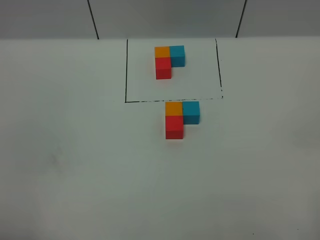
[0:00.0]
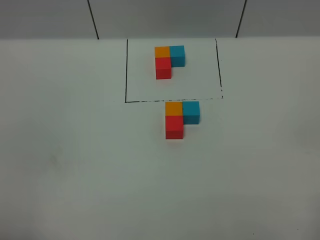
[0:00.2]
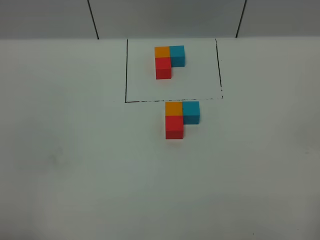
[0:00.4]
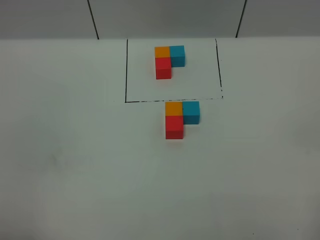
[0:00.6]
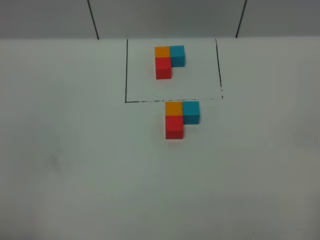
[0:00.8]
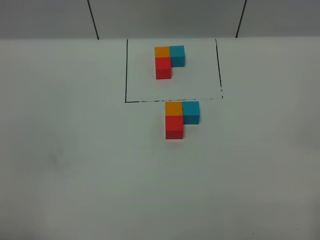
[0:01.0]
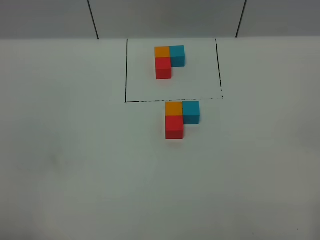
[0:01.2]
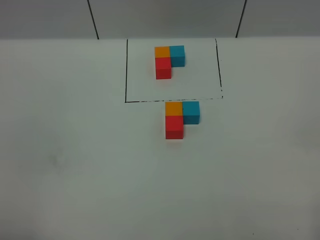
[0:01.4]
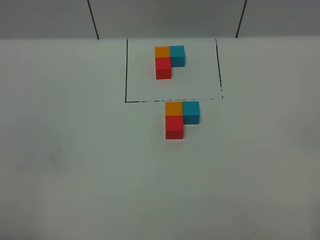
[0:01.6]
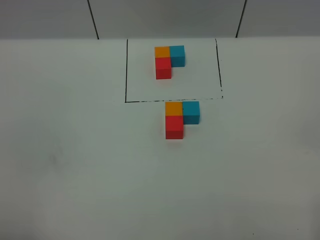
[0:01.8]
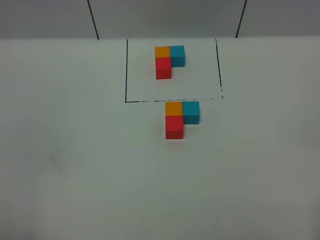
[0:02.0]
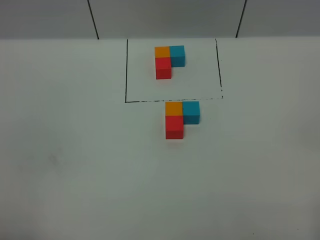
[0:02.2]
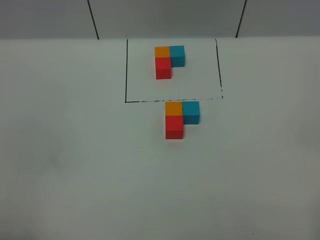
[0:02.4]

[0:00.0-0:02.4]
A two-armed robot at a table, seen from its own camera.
Task of the whole recording: According to the building block template in front, assemble the scattered blocks together.
1.2 to 2.4 s: The two grippers keep their place.

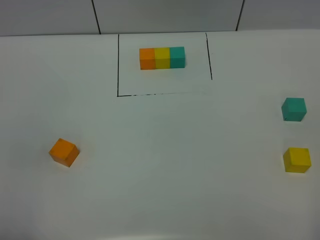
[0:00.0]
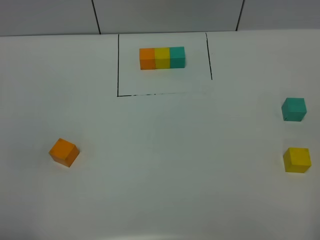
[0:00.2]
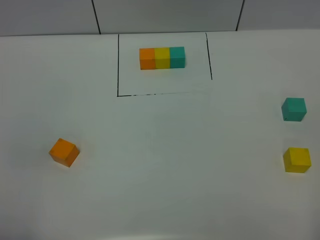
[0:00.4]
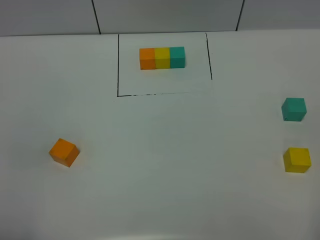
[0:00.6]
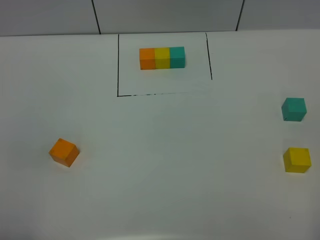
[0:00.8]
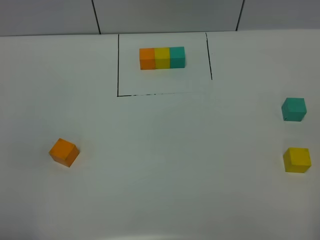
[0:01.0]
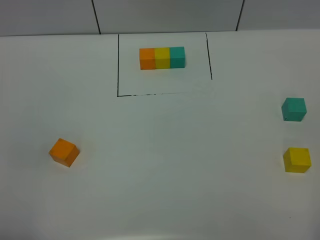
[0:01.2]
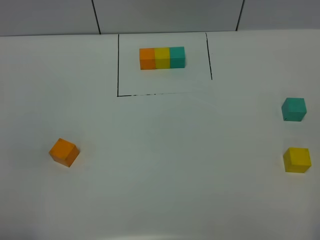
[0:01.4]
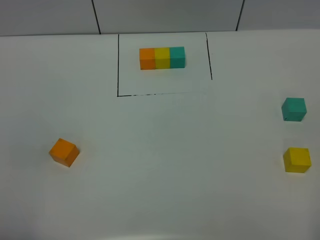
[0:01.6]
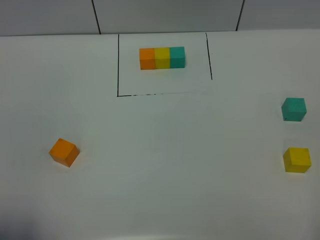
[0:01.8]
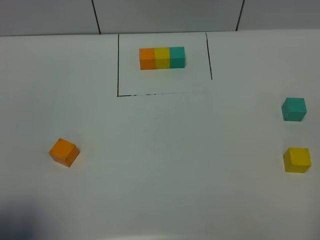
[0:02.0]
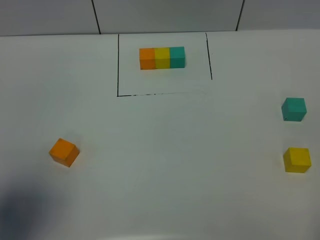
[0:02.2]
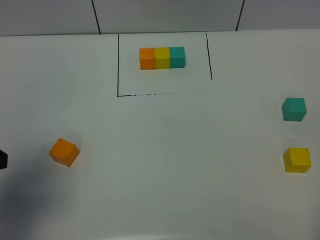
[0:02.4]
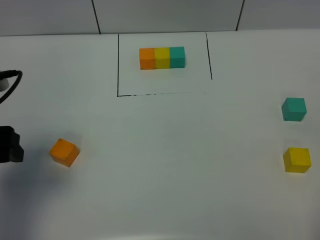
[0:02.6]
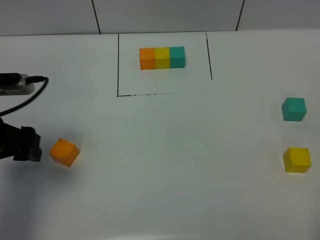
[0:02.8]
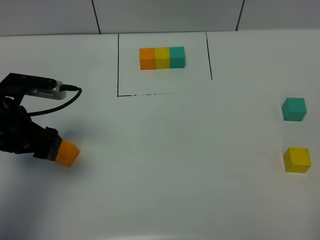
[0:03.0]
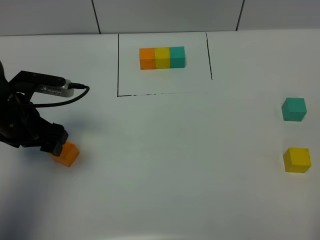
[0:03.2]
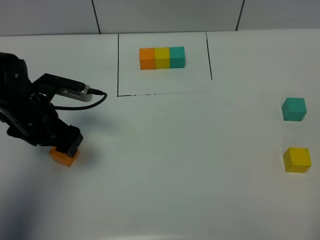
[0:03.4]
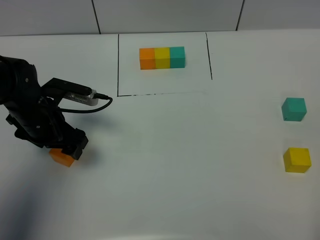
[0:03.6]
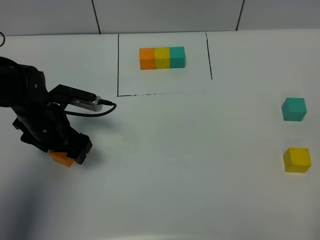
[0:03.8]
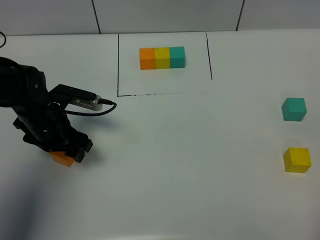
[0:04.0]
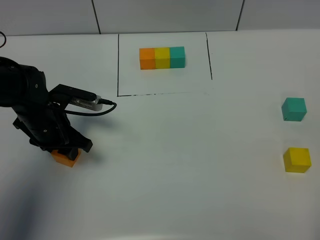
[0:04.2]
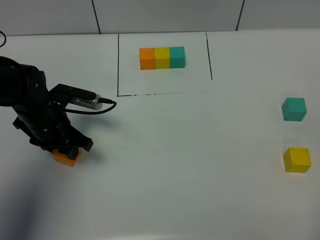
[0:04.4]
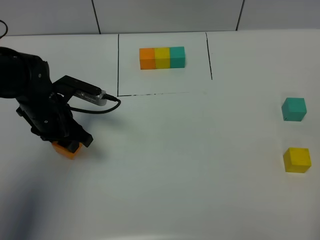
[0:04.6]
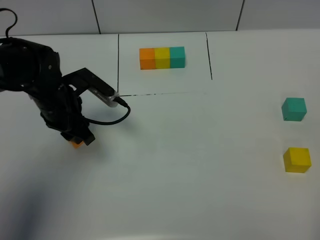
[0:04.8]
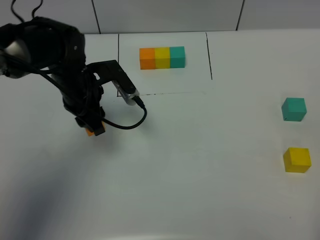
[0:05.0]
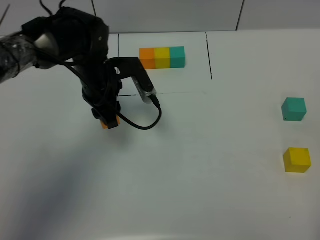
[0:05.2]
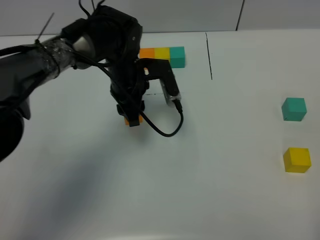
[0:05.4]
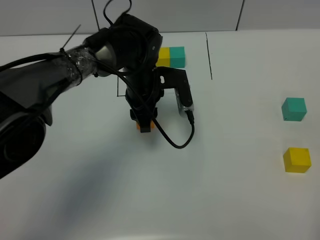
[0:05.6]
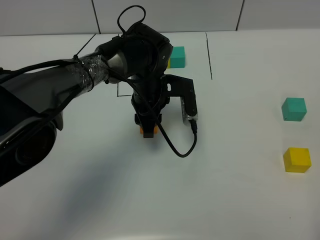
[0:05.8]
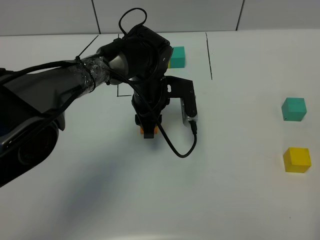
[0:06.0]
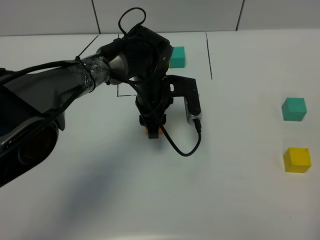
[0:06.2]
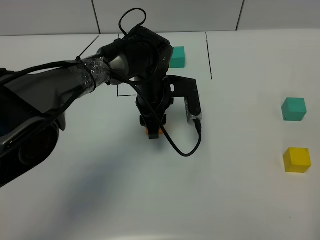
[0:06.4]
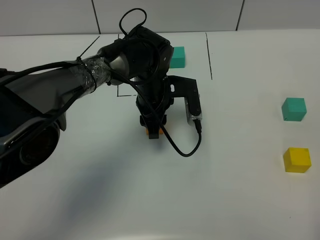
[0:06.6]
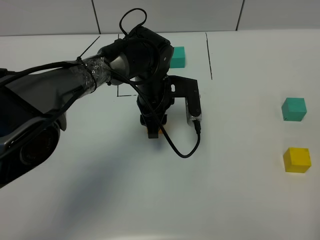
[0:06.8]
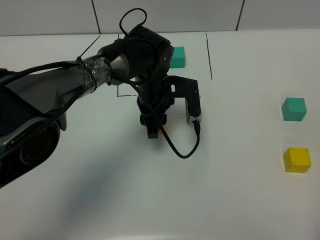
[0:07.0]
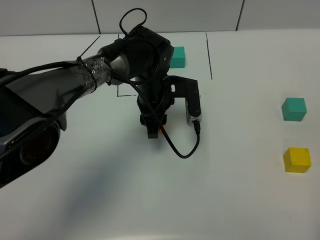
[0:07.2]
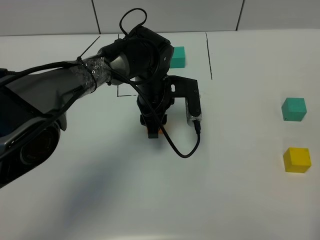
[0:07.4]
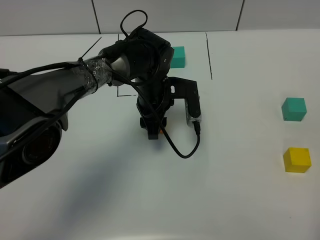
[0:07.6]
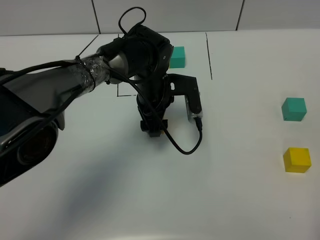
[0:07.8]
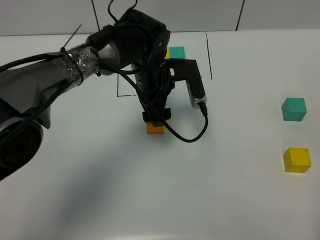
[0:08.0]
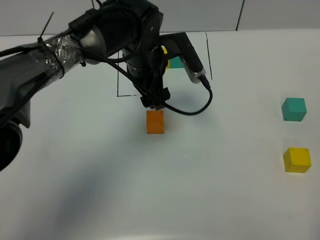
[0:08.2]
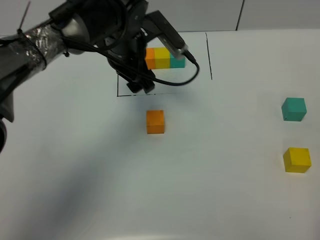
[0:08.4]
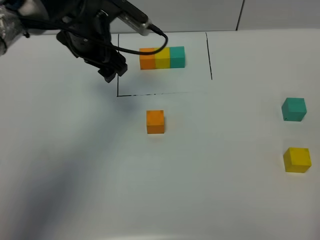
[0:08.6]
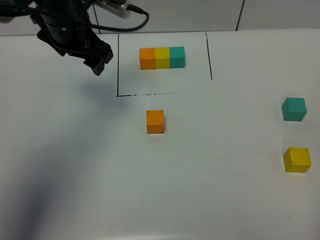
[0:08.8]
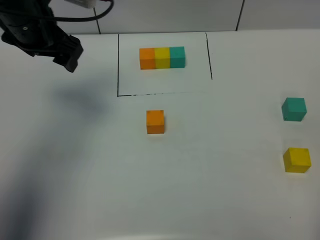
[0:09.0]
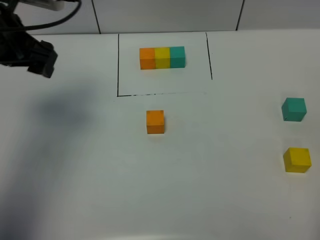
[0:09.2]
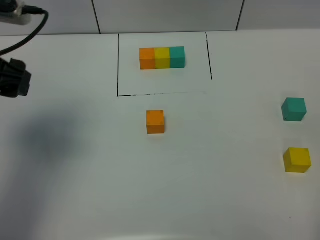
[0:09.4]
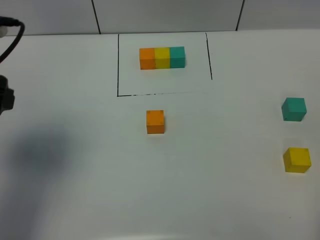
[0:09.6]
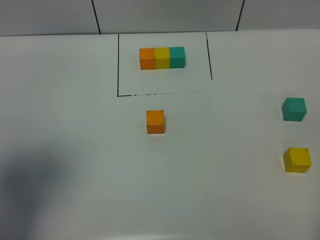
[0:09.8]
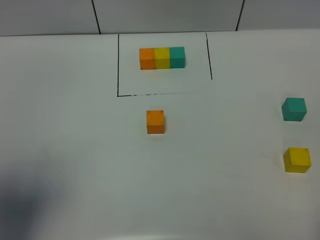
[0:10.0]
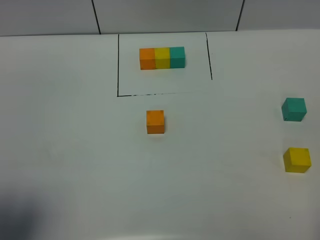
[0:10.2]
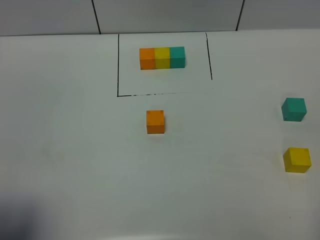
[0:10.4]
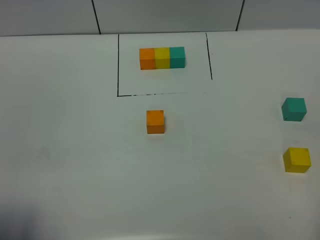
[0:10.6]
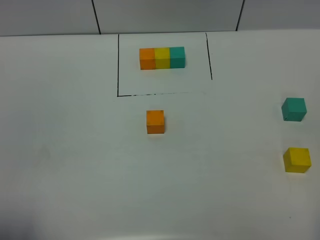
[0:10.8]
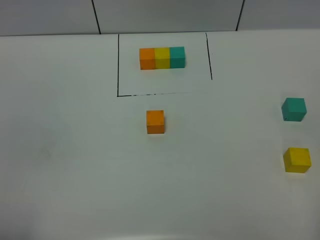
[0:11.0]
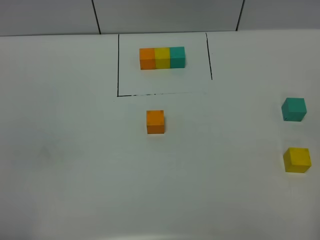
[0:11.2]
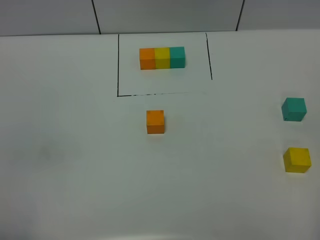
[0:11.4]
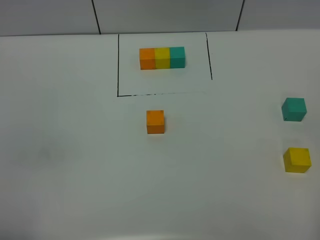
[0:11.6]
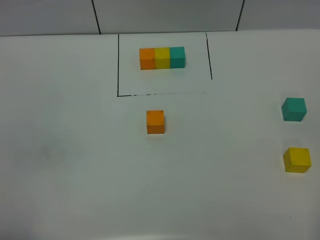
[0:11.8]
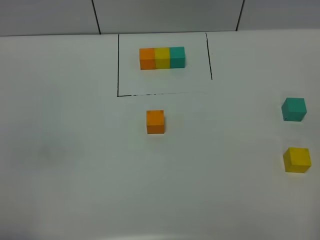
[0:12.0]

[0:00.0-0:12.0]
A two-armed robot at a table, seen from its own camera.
Task of the whole recording: According to the building block template in front, assemble the scattered blocks together.
Step, 0.0 to 7.6 s: Put the orange build block in the center of the table.
0.0 to 1.6 s: Both grippers stay about where they are.
1.6 to 3.0 s: The left gripper is displaced forward by roughly 25 cm.
3.0 to 4.4 s: The left gripper is displaced downward and forward by roughly 10 cm, and closes.
4.4 to 6.0 s: The left gripper is displaced to the right by roughly 20 cm.
6.0 to 7.6 s: Both grippers stay put.
7.6 to 9.0 s: The left gripper moves to the left and upward, roughly 25 cm, and opens.
9.0 to 10.4 s: The left gripper moves backward, about 35 cm.
10.4 to 12.0 s: The left gripper goes about 10 cm downward and backward.

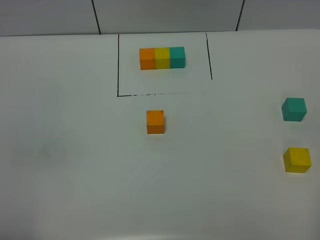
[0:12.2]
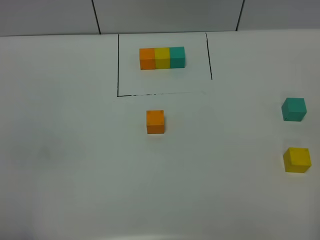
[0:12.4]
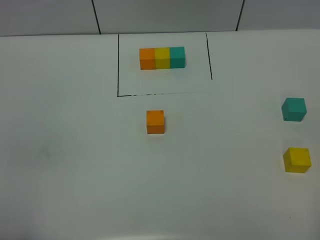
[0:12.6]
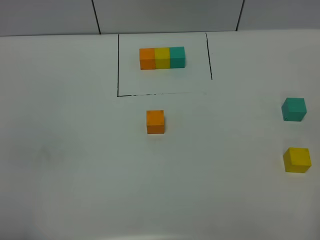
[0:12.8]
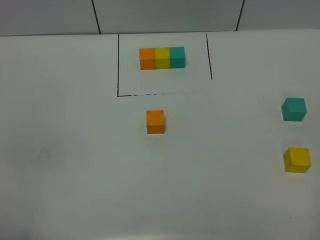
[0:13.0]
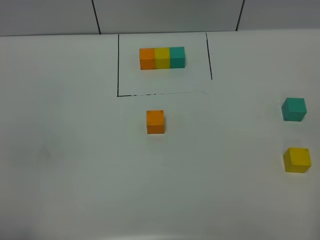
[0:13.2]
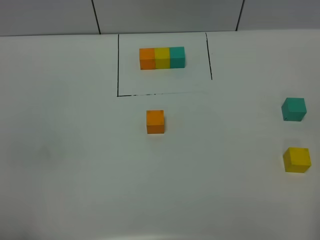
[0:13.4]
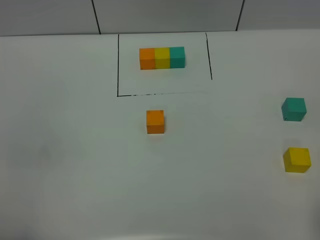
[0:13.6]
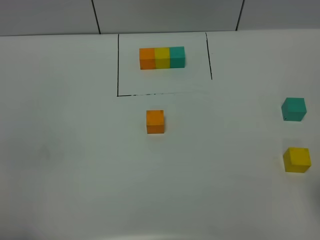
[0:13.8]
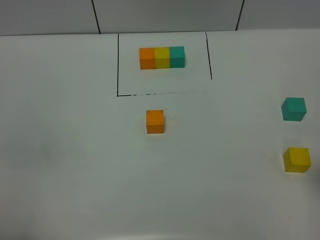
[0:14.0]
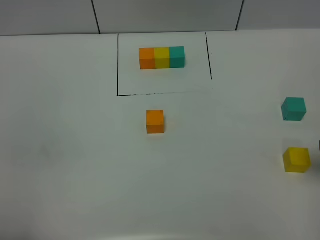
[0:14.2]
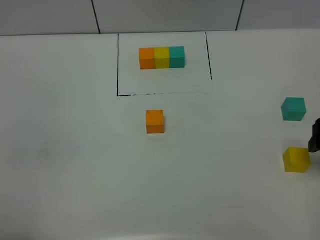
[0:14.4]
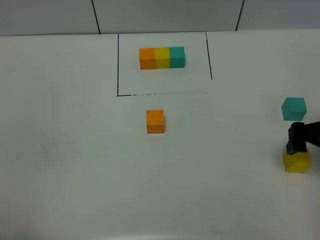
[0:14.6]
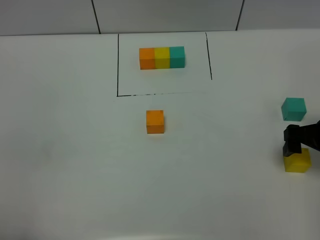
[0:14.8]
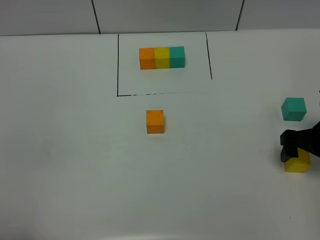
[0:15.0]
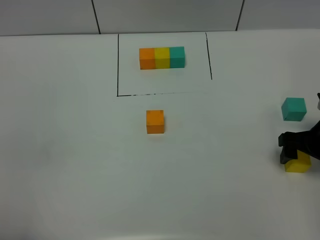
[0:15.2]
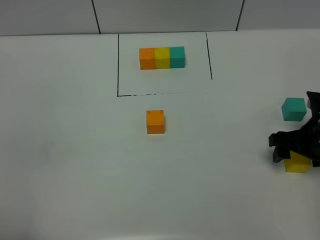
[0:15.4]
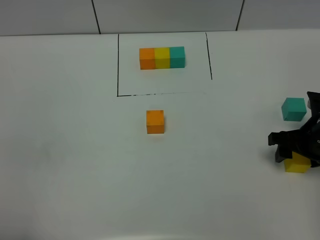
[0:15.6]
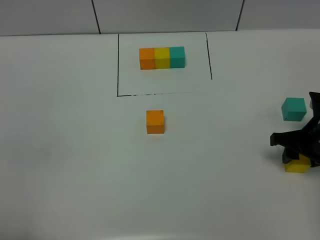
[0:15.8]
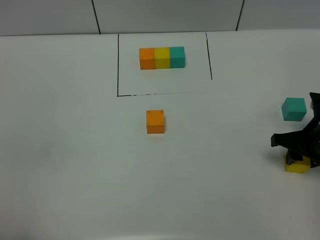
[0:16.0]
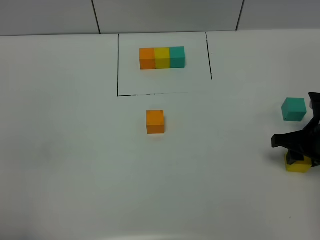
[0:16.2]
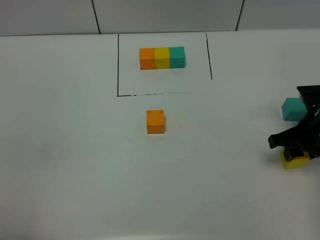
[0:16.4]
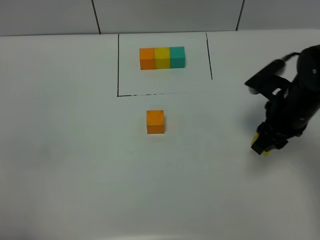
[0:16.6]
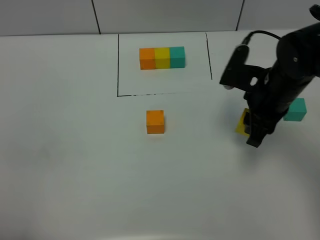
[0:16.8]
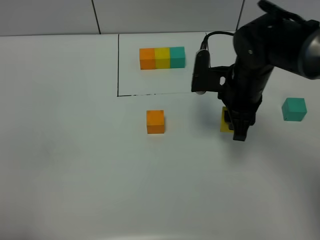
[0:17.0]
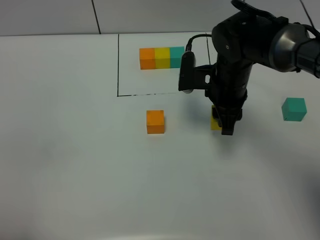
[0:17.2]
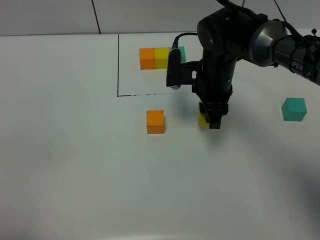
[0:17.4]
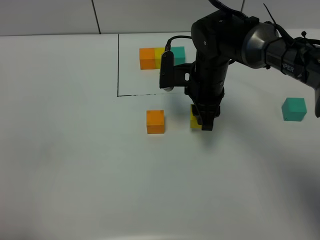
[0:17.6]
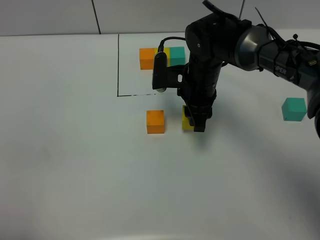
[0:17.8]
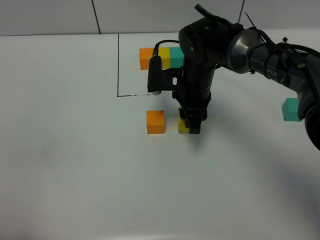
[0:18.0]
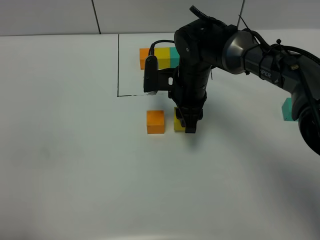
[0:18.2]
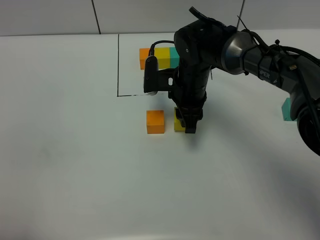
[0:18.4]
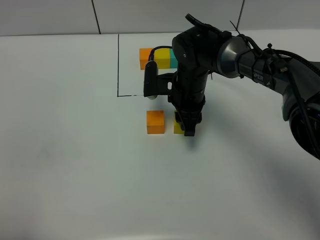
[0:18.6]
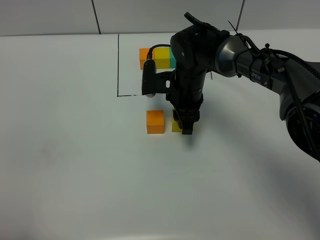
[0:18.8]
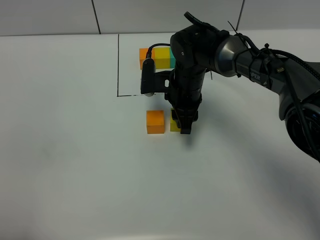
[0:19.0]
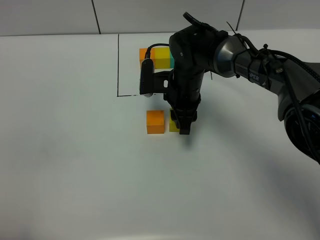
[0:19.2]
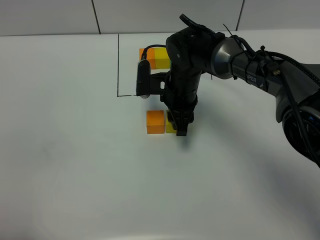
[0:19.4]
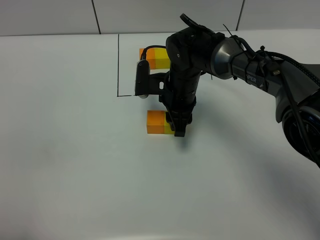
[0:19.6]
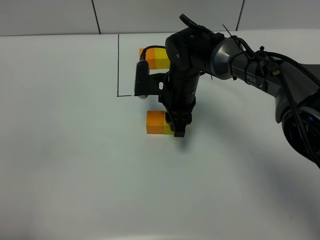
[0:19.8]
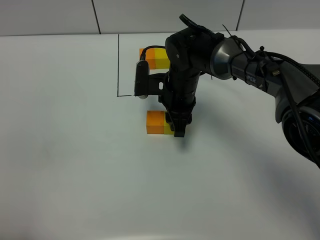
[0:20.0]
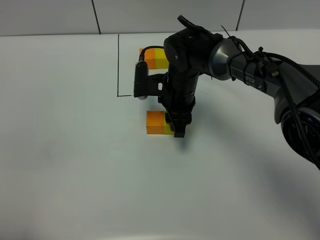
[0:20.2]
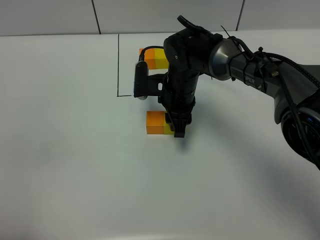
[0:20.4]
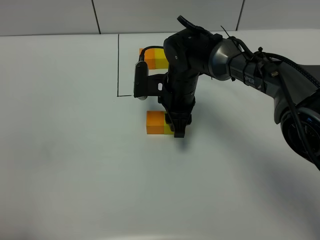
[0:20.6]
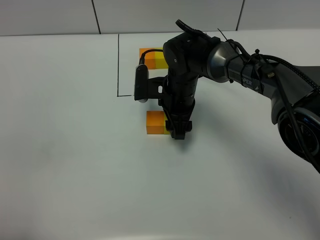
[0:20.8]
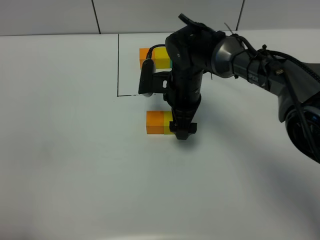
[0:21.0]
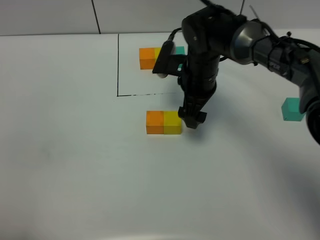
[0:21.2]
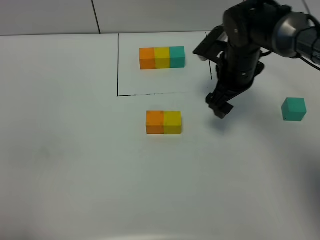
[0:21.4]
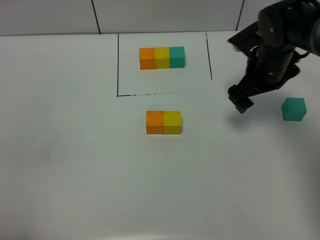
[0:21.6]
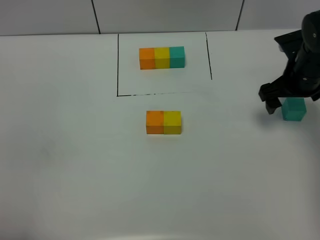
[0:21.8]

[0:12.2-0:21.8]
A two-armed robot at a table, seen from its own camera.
Task of the whole recording: According to the building block template in front, assemble the scattered blocks together.
Step, 12.2 to 20.8 s: Put the yellow build block on the right of the orange build block.
13.8 to 15.4 s: The right gripper shifts some 20 cm downward and forward.
15.4 to 17.0 s: The right gripper goes some 20 cm to the left, upward and forward, and closes up.
17.0 to 18.6 s: The right gripper is displaced to the left and downward by some 10 cm.
18.6 to 20.2 s: There are only small adjustments of the grippers.
20.2 to 21.8 s: The right gripper shifts roughly 25 cm to the right, and opens.
